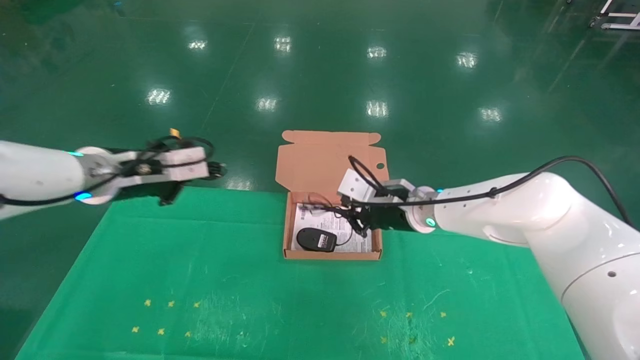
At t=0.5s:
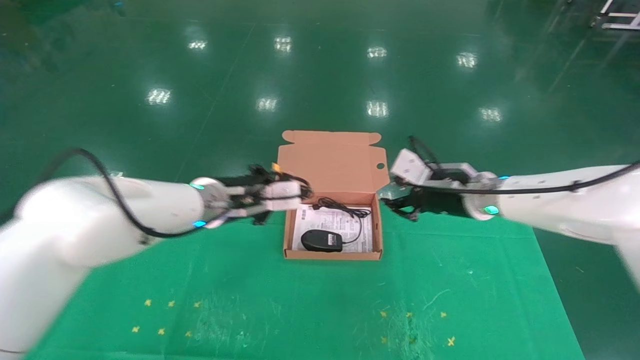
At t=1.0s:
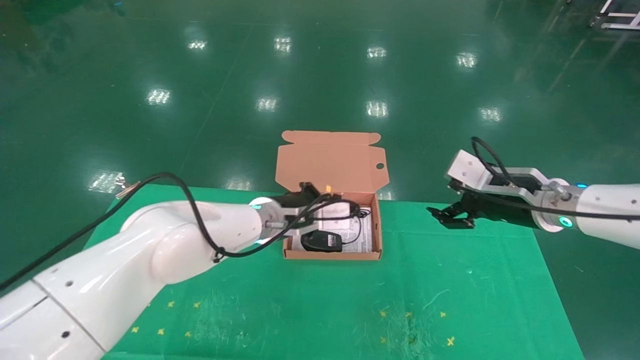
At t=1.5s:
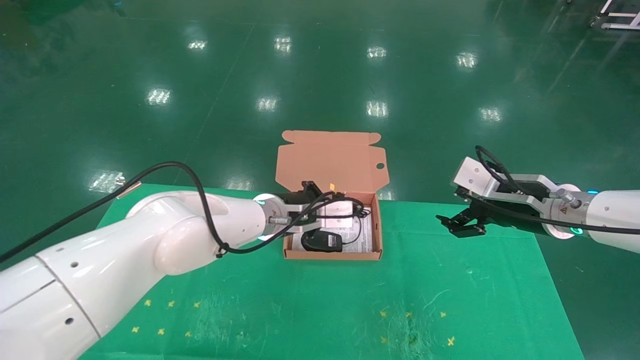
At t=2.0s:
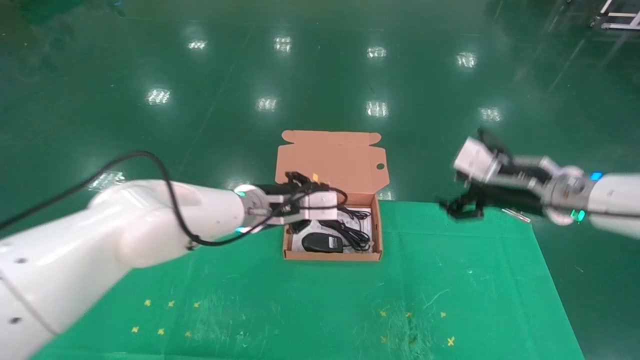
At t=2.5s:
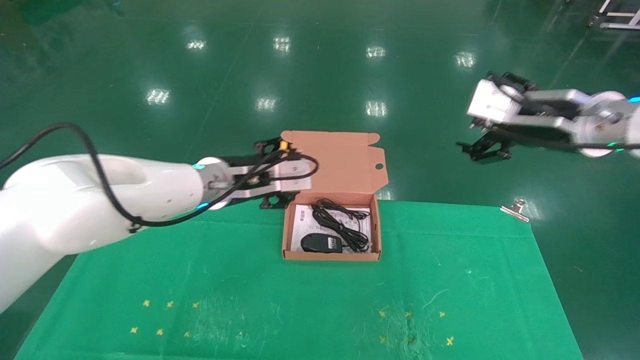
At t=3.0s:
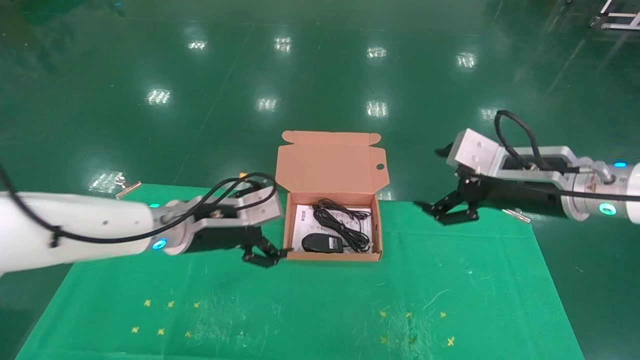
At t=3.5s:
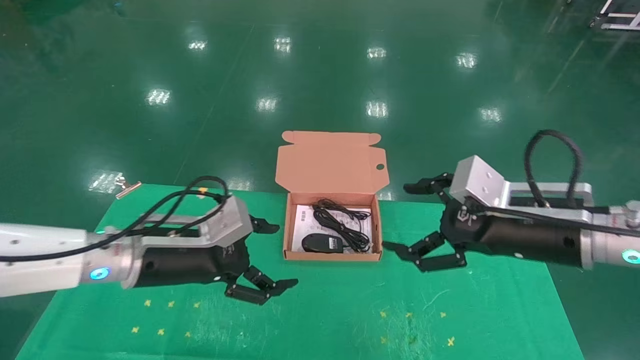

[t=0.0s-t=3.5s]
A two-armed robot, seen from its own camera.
Task of the whole recording: grasp data cable left put into box grasp mouse right put into box.
Step, t=0.0s to t=2.0s: Place the mouse and power cord into the box.
t=0.0s to t=2.0s: The left gripper travels to the right by roughly 15 cm. Meanwhile the right gripper moves to the right, backward and upward, about 20 cm, and opens up.
t=2.0s to t=3.5s: The left gripper is displaced to the left and backward by some 15 cm, and opens; the right gripper is displaced backward by some 10 cm.

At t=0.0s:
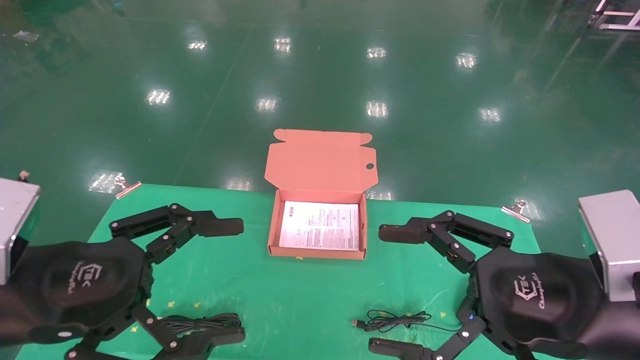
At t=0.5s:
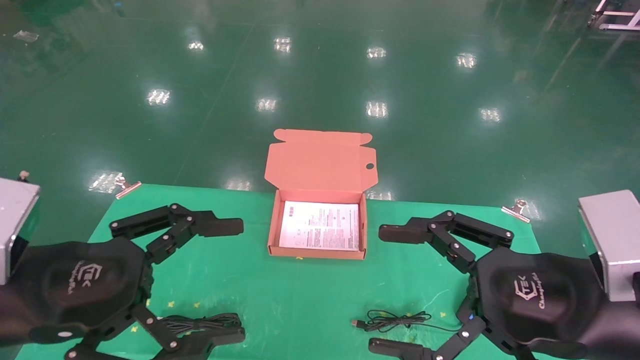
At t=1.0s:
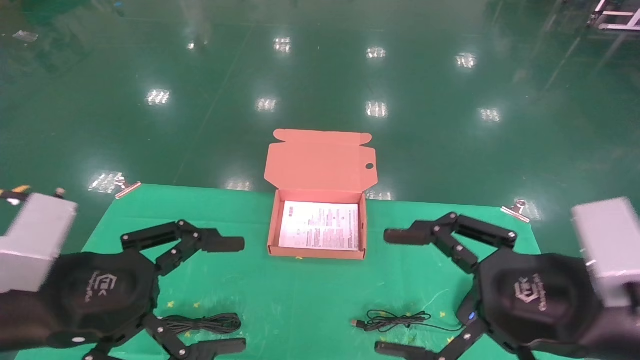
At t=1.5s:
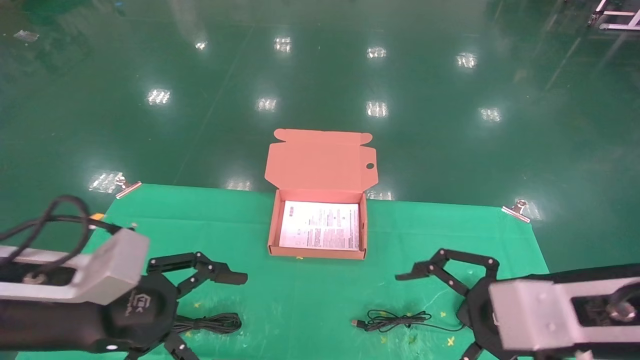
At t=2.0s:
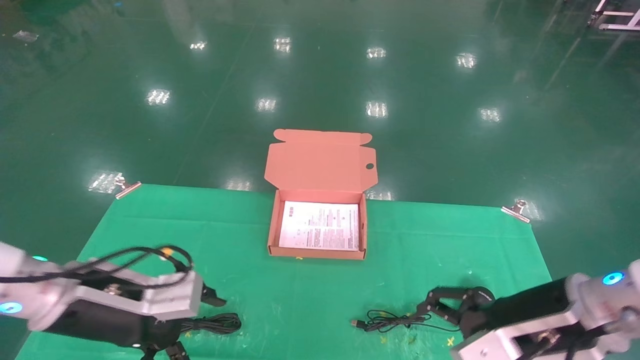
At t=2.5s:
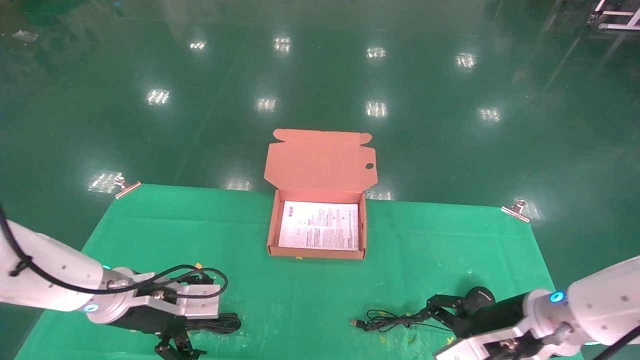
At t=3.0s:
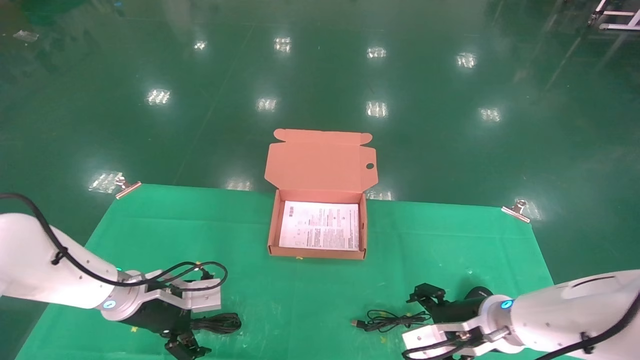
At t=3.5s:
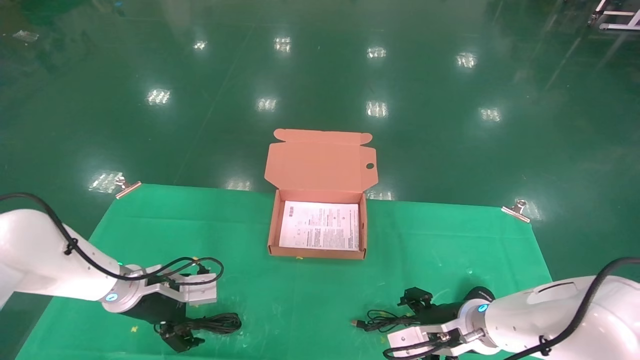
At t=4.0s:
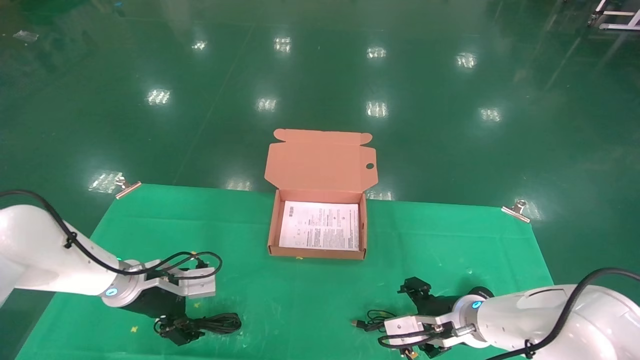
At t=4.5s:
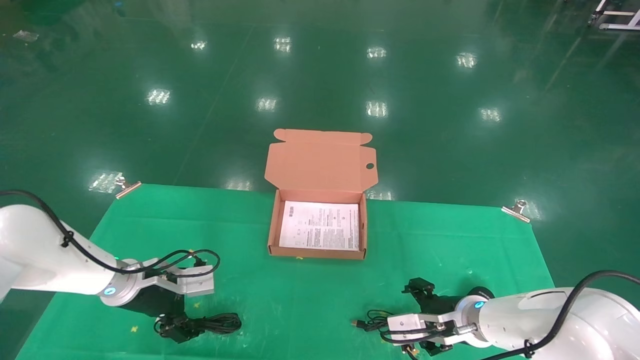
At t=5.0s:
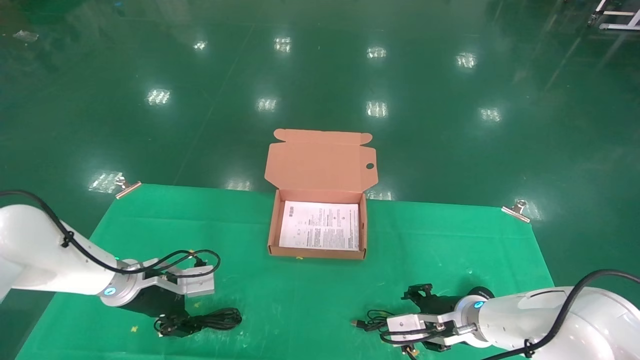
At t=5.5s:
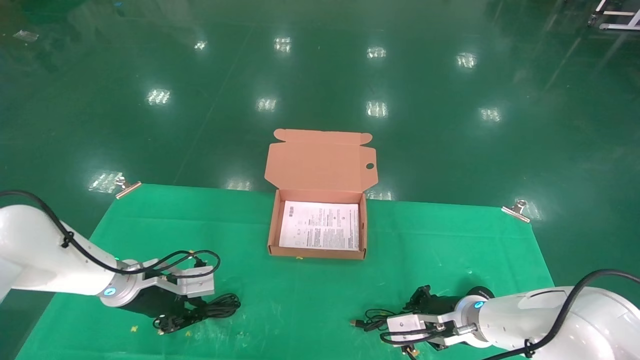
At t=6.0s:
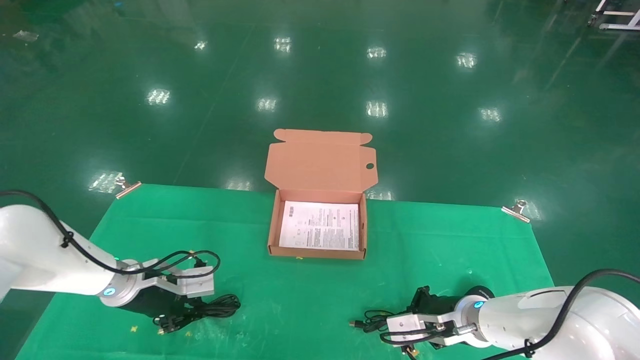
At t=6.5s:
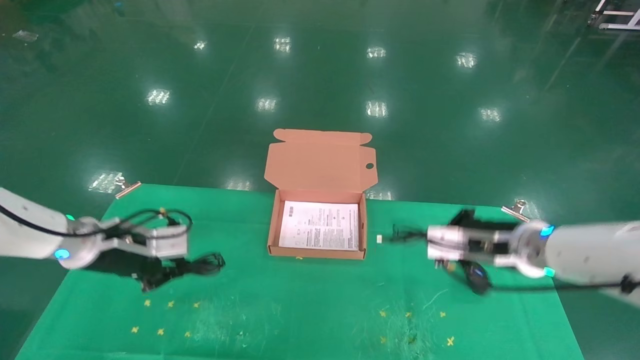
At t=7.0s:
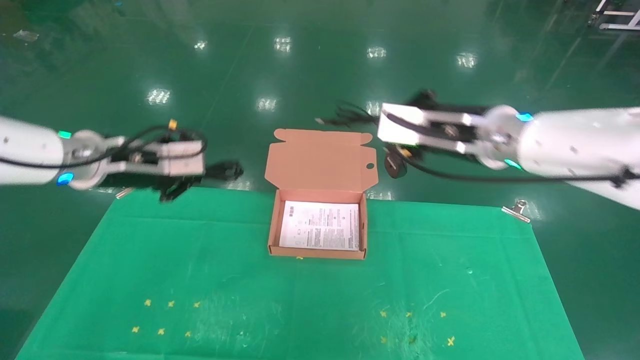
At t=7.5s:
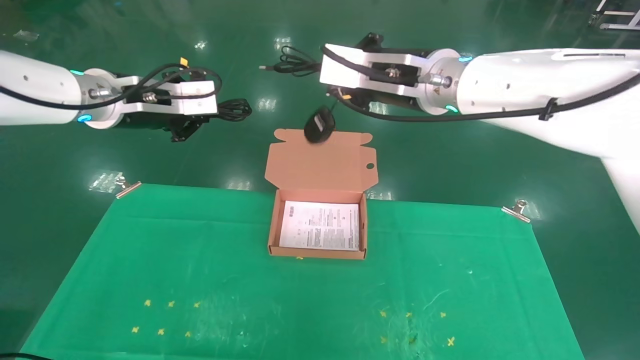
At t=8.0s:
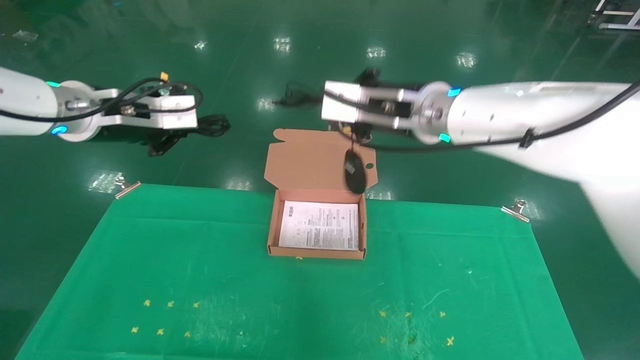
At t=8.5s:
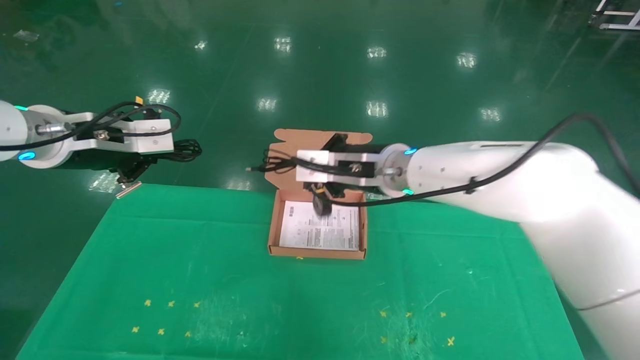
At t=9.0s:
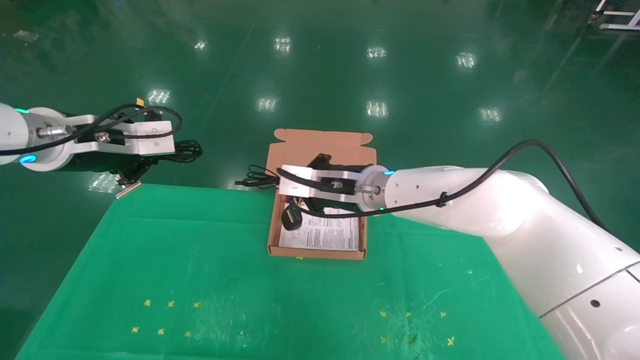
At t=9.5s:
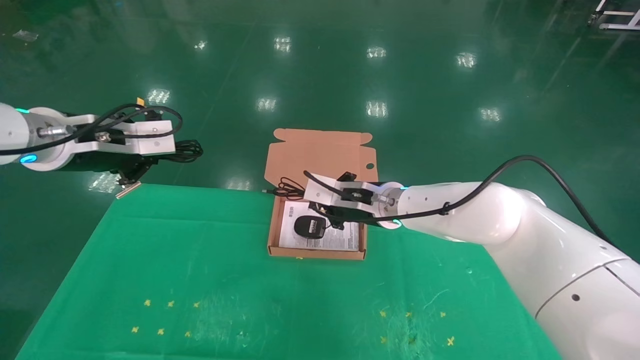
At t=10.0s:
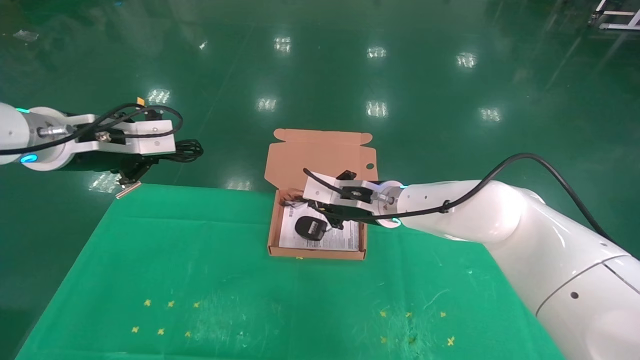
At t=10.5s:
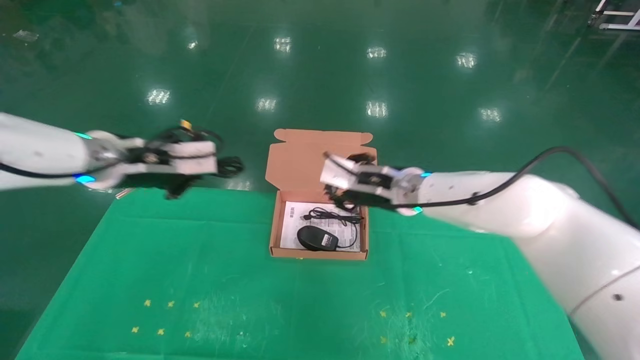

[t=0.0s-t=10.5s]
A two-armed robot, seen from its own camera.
Task of the whole recording: grasp data cable left put into box grasp mouse right put into box.
Step, t=1.0s to t=6.0s: Grab and pick up both the mouse and power cord from the accessory packaging area at the same time.
t=0.0s to t=2.0s: The two grippers go about 10 cm forward and downward.
t=2.0s to t=4.0s: The right gripper travels downward and forward by approximately 15 cm, while the left gripper travels forward and downward by some 15 cm.
t=4.0s to t=6.5s: Both grippers travel together upward, about 10 cm. The left gripper closes its fingers. Meanwhile the right gripper closes up.
t=6.5s to t=8.5s: The right gripper heads to the left and upward, covering some 20 cm. The left gripper shifts about 15 cm upward.
t=8.5s to t=10.5s: The left gripper shifts approximately 5 cm to the right; the right gripper changes place by roughly 5 cm.

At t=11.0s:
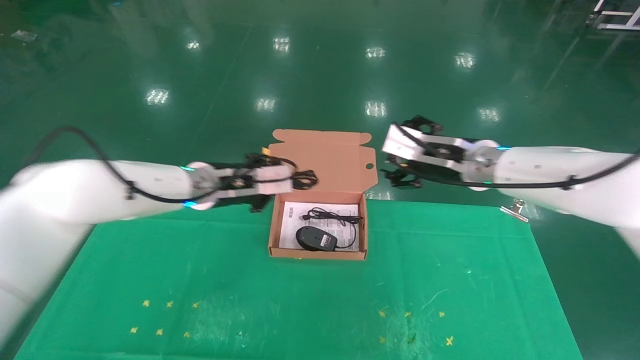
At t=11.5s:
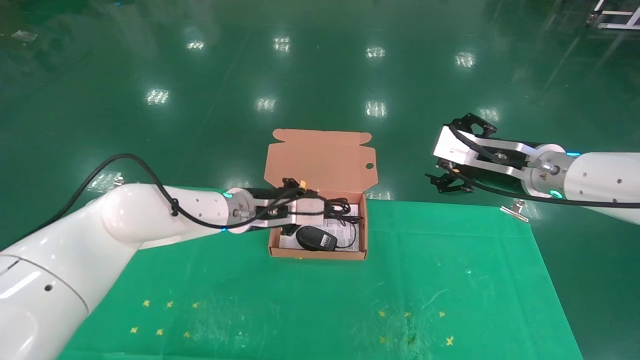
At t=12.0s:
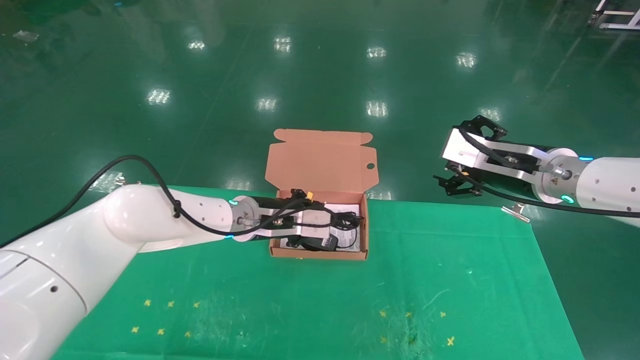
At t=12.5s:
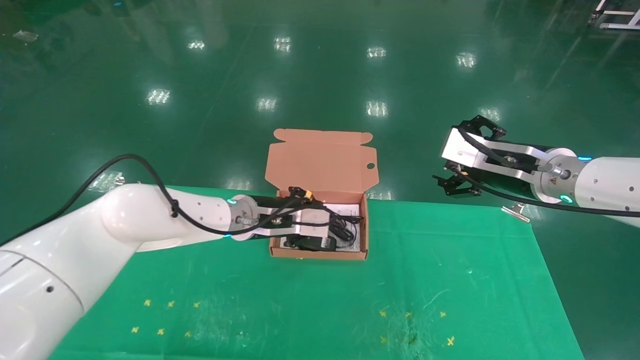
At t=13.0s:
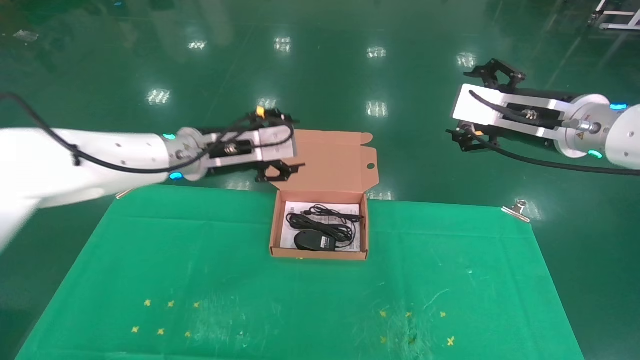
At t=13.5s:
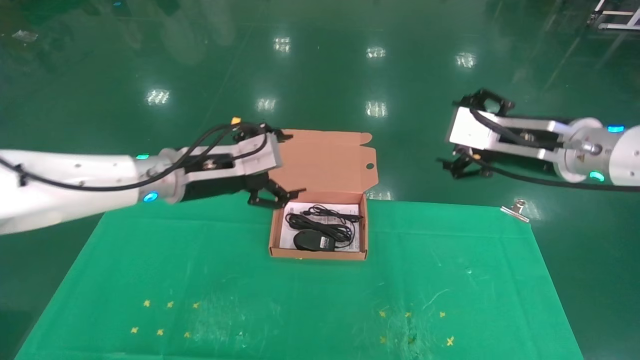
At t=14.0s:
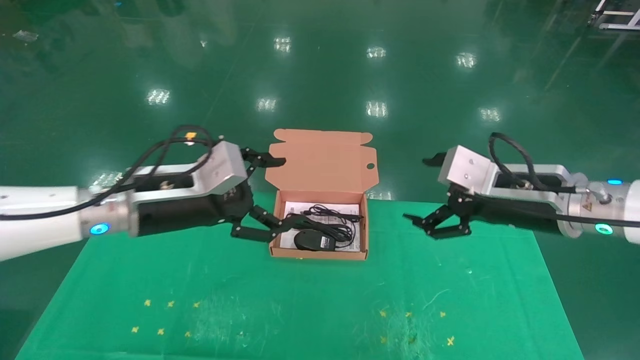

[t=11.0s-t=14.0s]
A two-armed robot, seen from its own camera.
Task of the whole recording: grasp data cable left put into box grasp mouse right put into box.
Step, t=11.0s to t=13.0s: Place the mouse and power cord into the box.
t=11.0s to t=12.5s: The left gripper ends up roughly 5 cm from where it was, while the right gripper is displaced to the right by some 5 cm.
t=12.5s to t=14.0s: The left gripper travels backward, to the left and upward by roughly 15 cm, and opens. The right gripper is displaced backward by about 5 cm.
